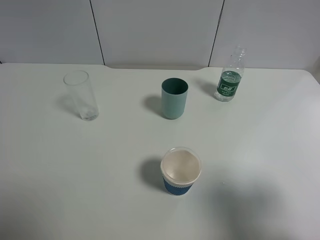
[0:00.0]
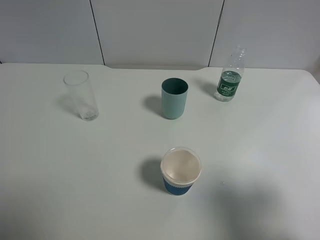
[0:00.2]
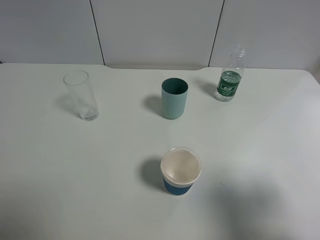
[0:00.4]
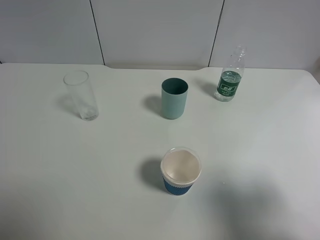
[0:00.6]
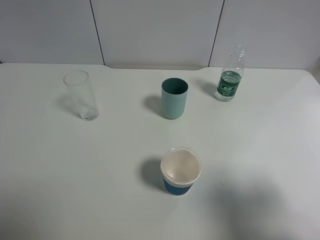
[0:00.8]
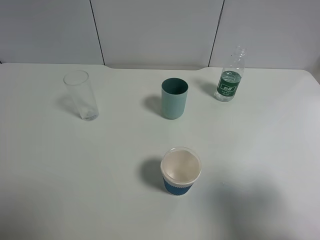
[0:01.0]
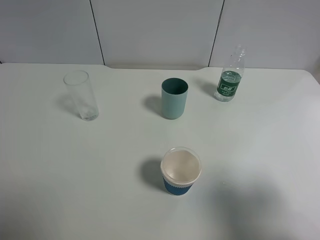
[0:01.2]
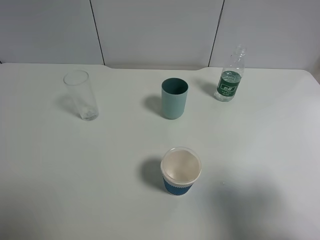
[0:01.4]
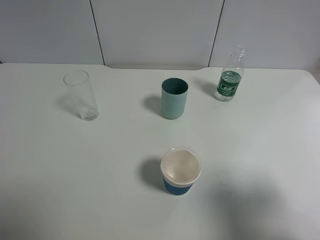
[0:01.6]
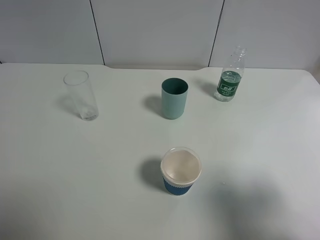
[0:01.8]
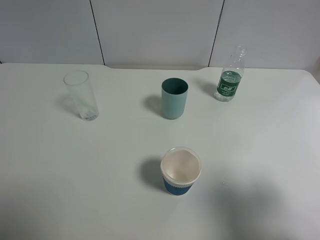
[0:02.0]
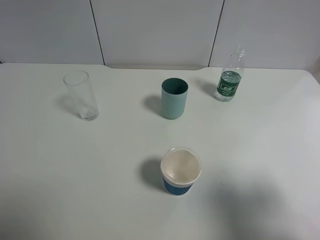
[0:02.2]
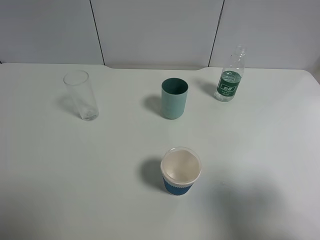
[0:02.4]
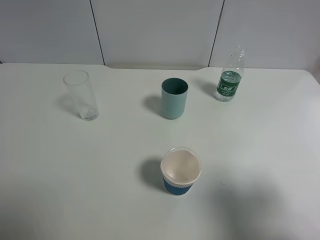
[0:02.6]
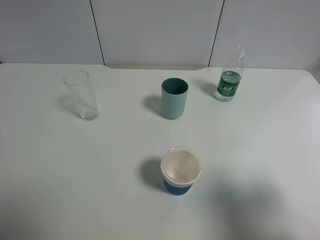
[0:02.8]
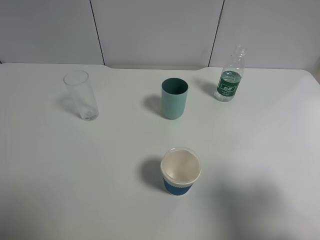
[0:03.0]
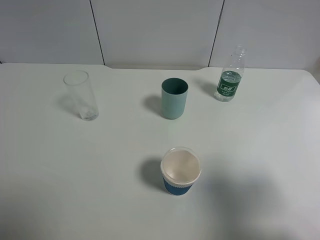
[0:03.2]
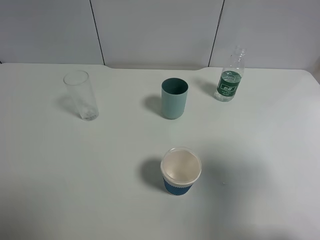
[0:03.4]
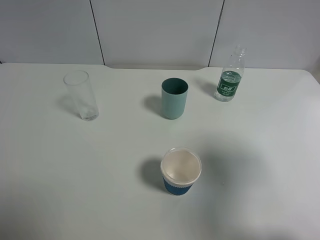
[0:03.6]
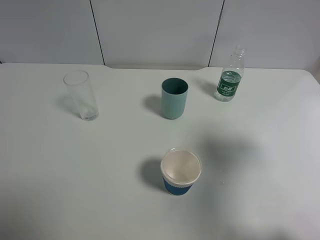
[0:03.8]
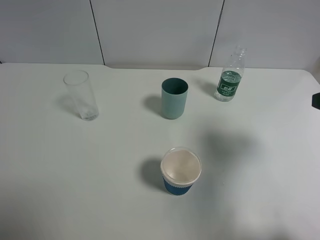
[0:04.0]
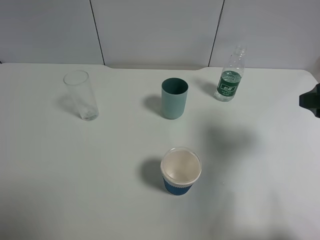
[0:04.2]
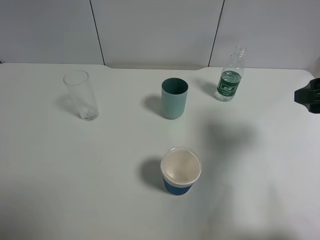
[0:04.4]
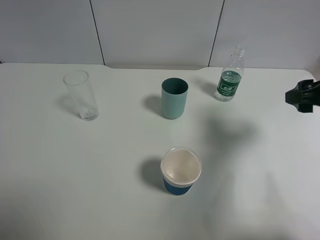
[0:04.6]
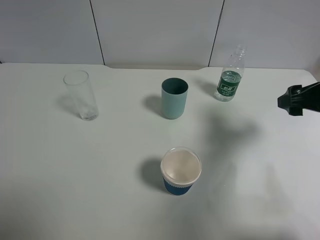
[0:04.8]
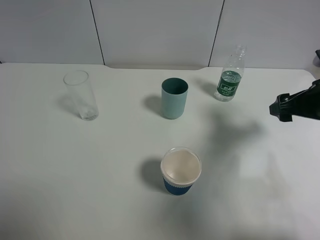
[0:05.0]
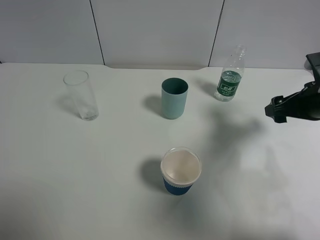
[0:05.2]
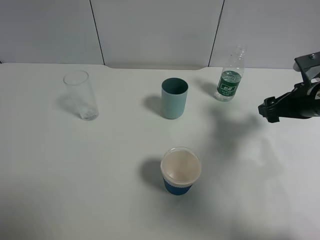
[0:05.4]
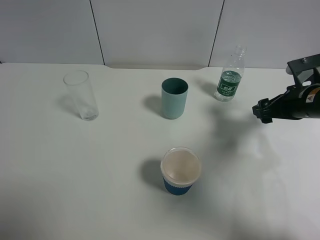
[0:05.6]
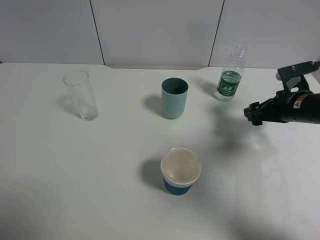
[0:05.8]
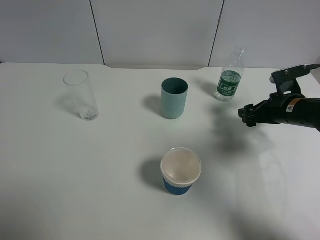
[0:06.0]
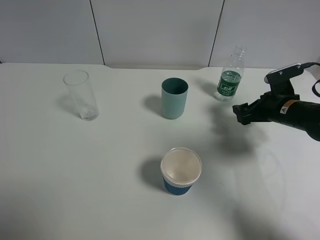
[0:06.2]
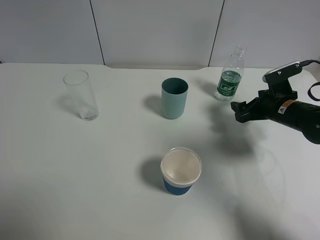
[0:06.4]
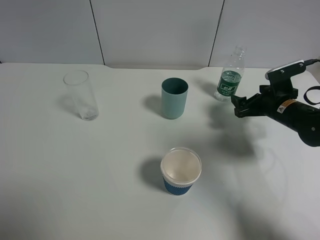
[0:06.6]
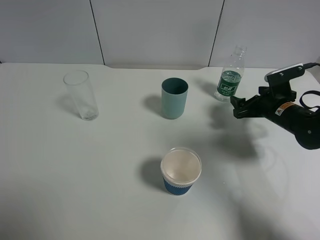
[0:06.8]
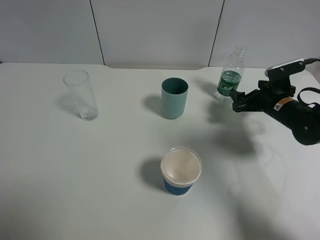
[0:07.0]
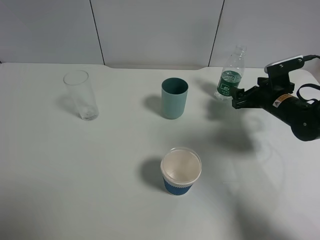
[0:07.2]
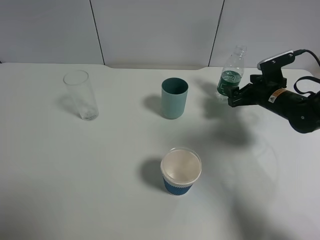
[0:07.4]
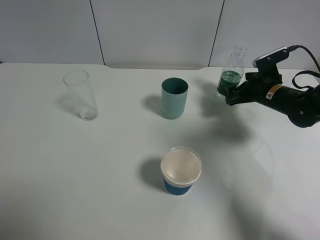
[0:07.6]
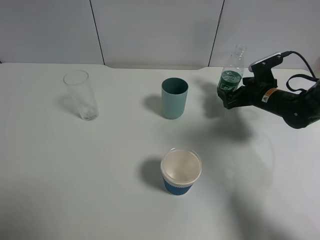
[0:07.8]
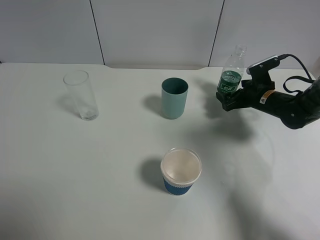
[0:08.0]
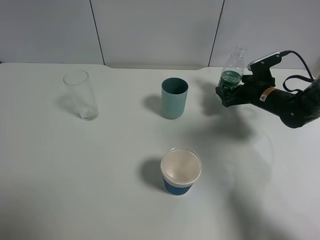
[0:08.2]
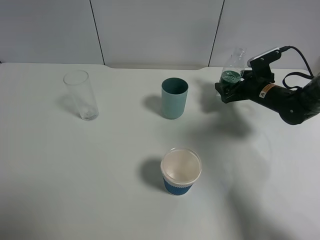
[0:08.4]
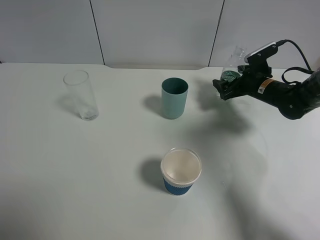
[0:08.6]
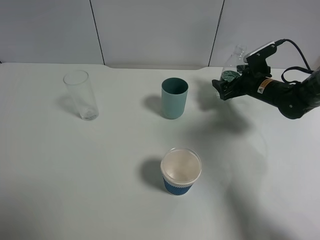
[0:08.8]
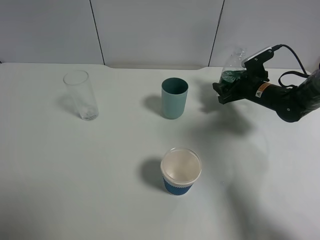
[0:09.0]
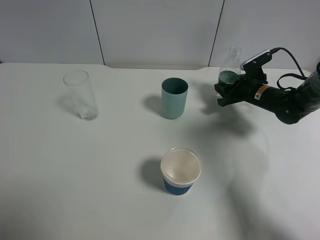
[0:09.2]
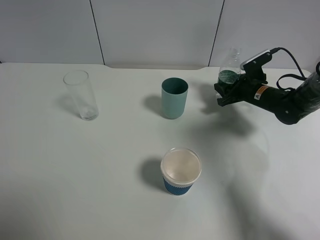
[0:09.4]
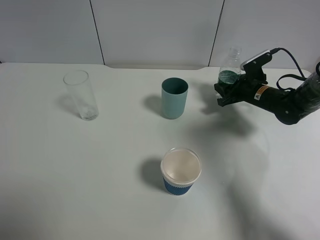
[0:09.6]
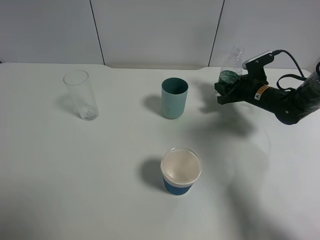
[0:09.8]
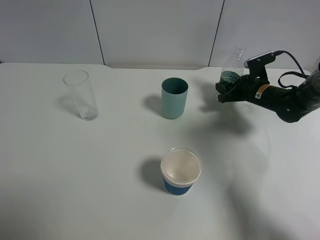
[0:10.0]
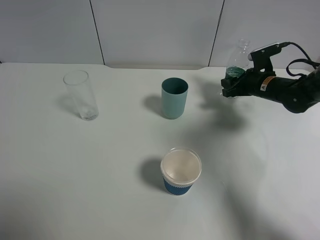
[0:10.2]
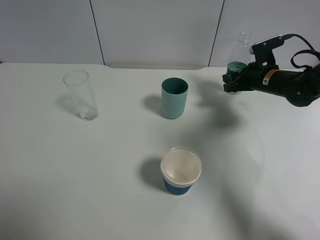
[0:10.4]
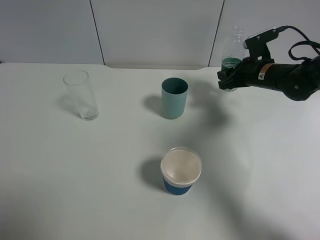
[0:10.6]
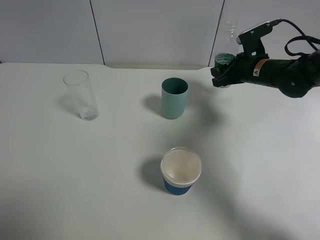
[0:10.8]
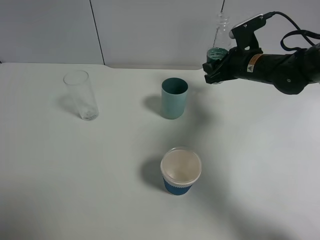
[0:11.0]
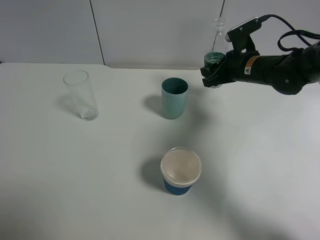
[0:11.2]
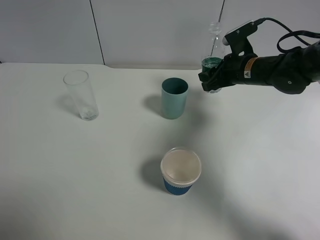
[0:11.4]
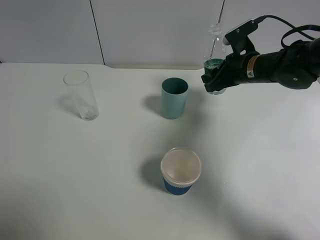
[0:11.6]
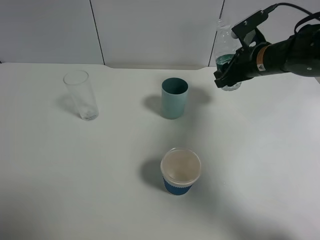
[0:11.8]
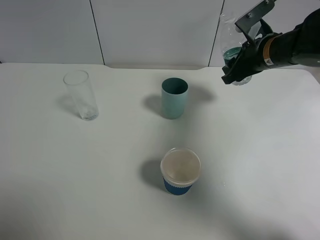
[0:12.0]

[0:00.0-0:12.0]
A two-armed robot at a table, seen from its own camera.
Task of the whole recording: use a gripper to hold the bottle of the drink and pour it into a random cup.
Step, 0:00.0 to 0:09.4: Grasp the mineral water bottle with the right gripper.
0:00.0 to 0:03.0: Neither gripper changes place.
0:03.0 to 0:04.4: The right gripper is displaced forward by approximately 15 cm.
0:04.4 to 0:06.0: The right gripper moves downward and forward, about 20 cm.
0:06.0 to 0:07.6: The right gripper is displaced forward by about 5 cm.
0:07.6 to 0:09.0: The right gripper closes up.
0:09.0 to 0:10.4: The right gripper shifts roughly 5 cm upward.
0:10.4 to 0:12.0: The right gripper heads upward and to the left, covering roughly 10 cm.

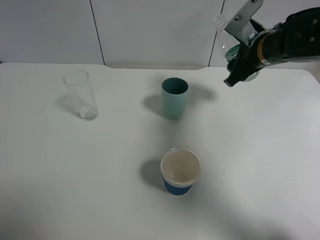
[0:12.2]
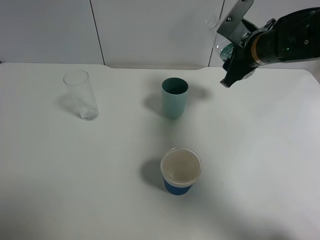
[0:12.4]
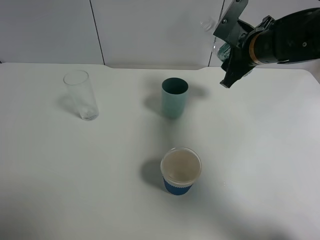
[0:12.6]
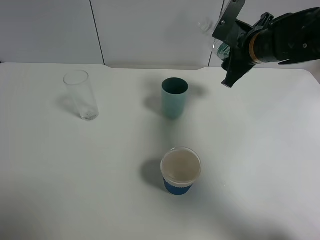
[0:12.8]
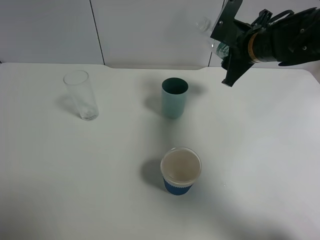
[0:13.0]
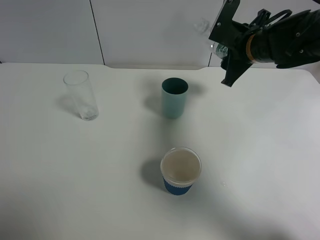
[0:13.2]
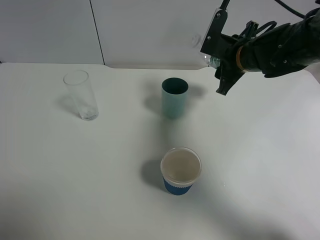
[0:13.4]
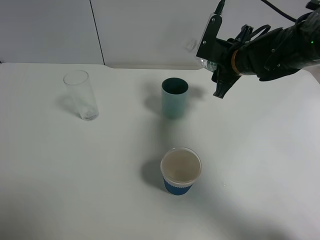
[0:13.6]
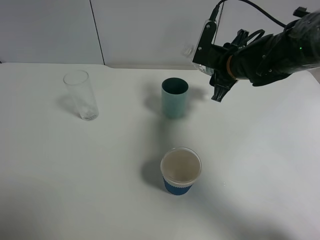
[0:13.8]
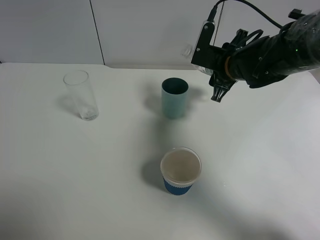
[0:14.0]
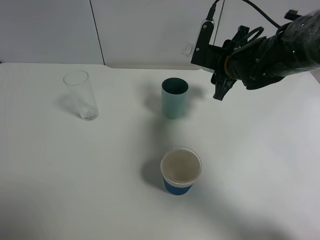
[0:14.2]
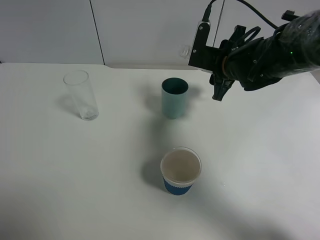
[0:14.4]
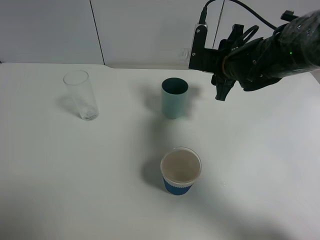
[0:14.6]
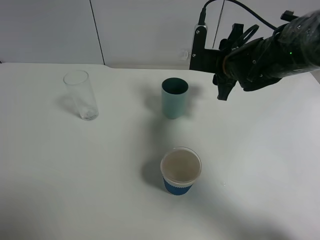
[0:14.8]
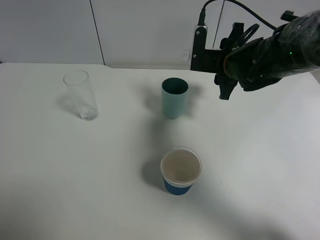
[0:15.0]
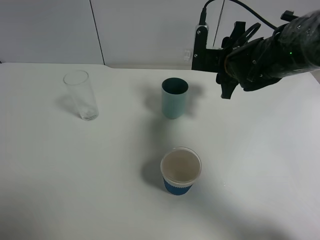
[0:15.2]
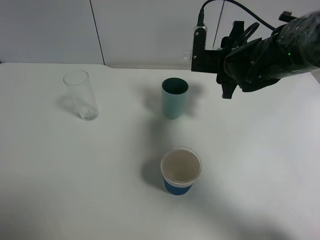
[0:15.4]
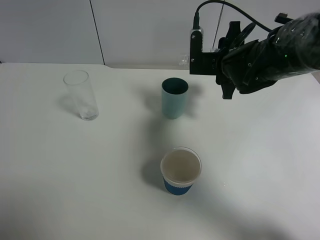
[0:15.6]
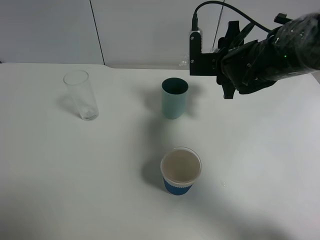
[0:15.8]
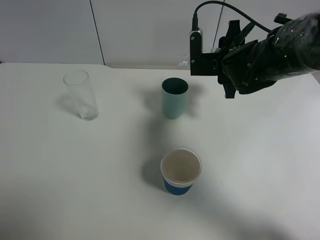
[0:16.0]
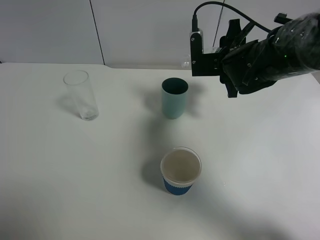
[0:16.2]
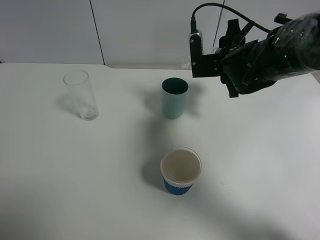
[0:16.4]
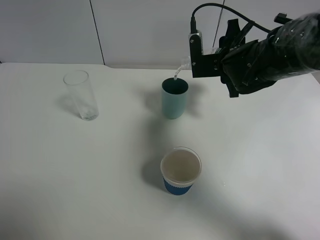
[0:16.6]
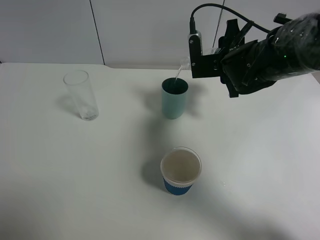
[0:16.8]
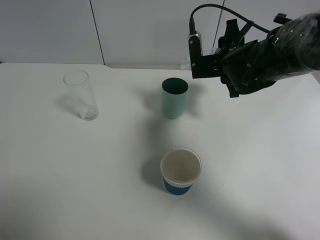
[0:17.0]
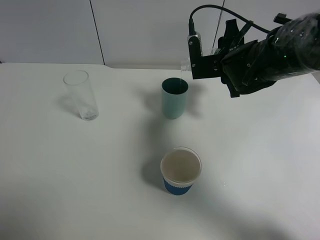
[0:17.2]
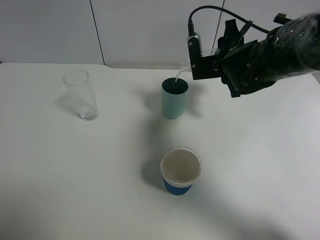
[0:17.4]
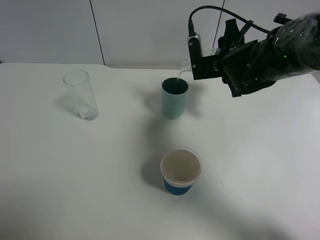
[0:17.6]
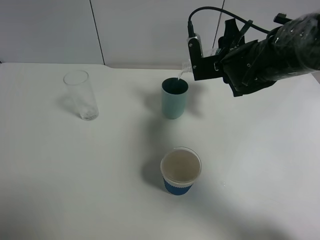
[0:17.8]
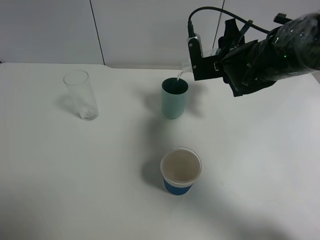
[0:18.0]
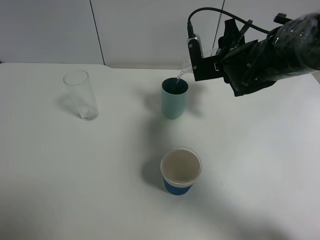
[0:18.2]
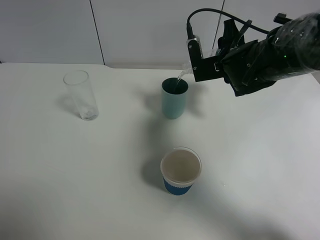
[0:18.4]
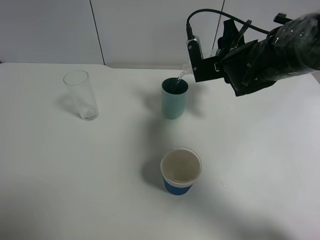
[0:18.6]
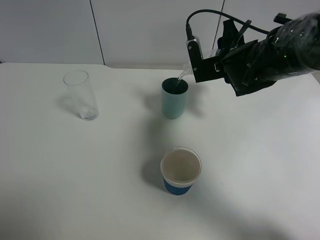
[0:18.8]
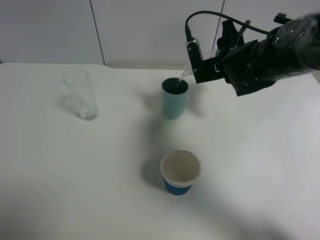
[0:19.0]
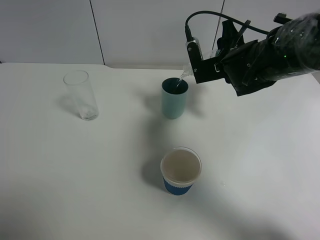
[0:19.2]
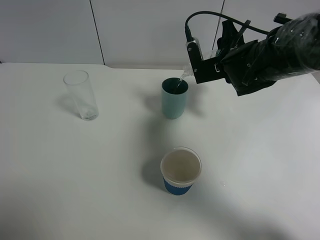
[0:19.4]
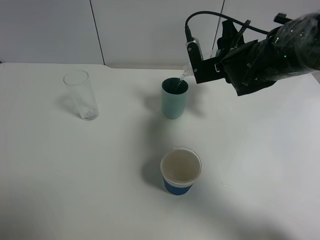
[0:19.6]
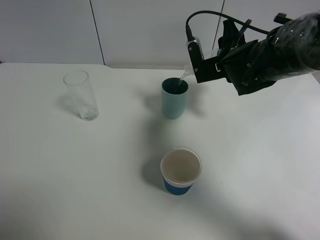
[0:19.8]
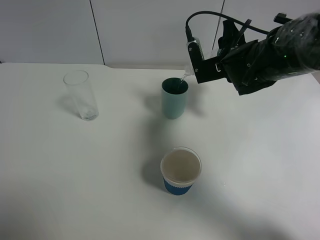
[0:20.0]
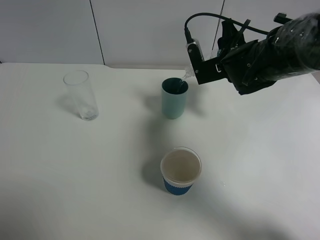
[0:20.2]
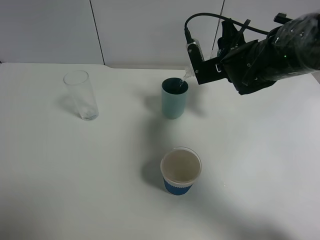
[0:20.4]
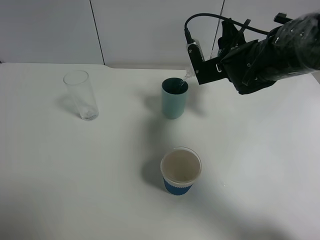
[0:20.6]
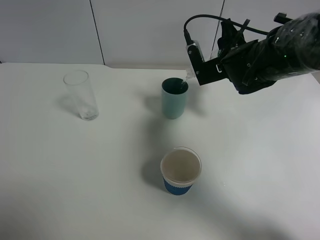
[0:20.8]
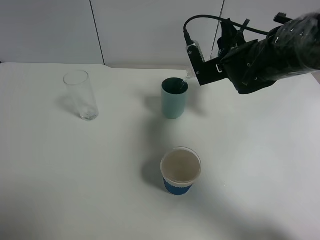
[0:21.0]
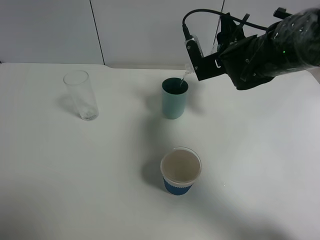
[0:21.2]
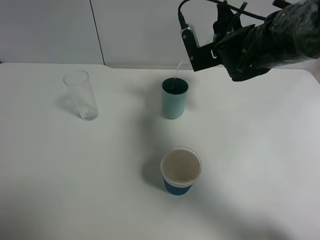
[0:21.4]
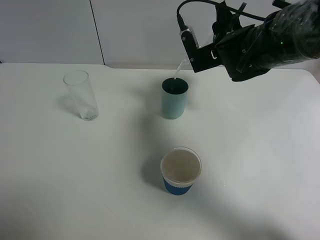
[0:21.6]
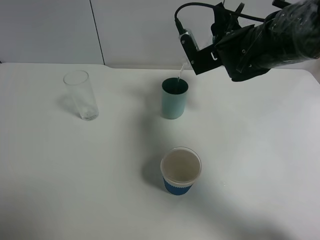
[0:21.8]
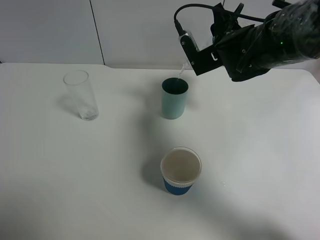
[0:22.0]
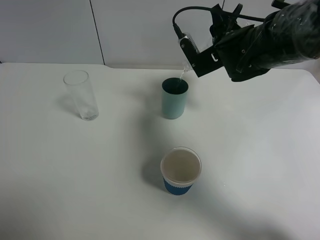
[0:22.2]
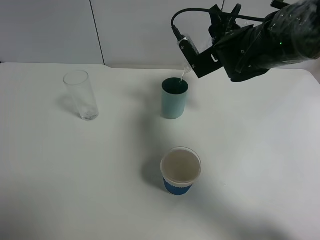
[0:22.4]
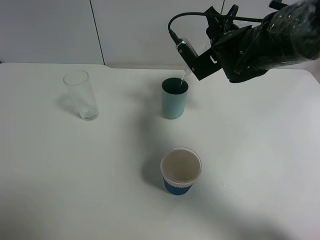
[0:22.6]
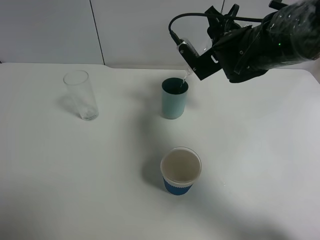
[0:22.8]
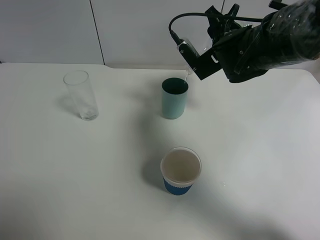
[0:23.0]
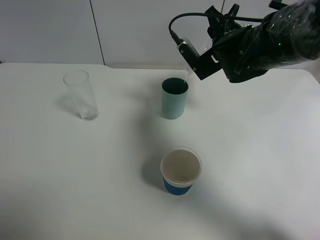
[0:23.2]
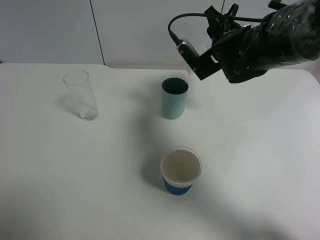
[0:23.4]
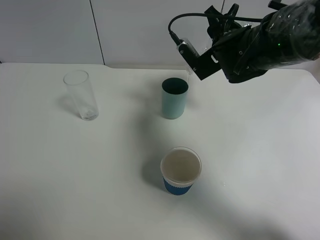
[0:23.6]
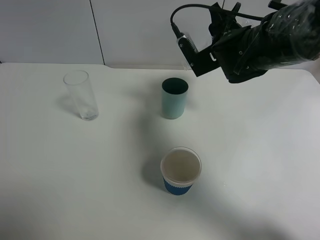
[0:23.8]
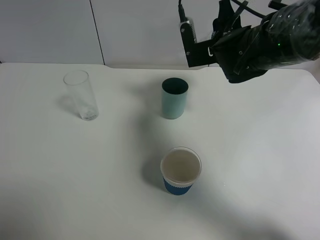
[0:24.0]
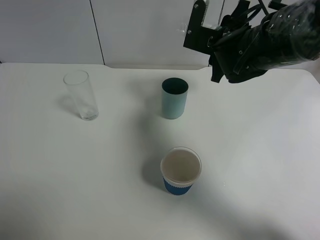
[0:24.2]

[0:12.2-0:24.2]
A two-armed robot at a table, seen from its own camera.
Task of the whole recording: use a gripper to hold the bottle of the drink and pour it into a random cup.
Step, 0:12.2 to 0:24.0: Pour the mineral water into the cyan cup with the right gripper.
0:12.2 to 0:13.8: The right gripper shifts by approximately 5 cm.
0:13.8 to 0:15.2: The grippers stay close to where they were, moving slightly.
0:15.2 to 0:18.2: The grippers move only a little.
0:18.2 to 0:19.8: Both grippers stay put.
0:19.8 to 0:21.2: The grippers stay close to where they were, moving slightly.
0:21.2 to 0:22.6: There are only small adjustments of the grippers.
